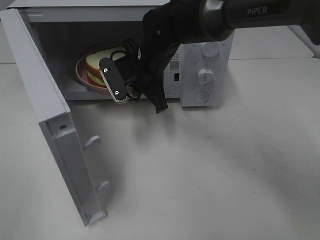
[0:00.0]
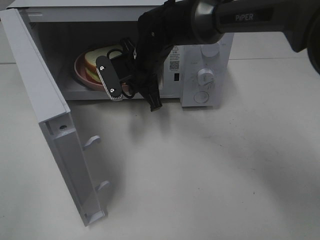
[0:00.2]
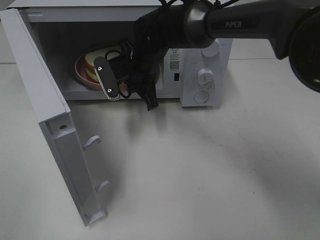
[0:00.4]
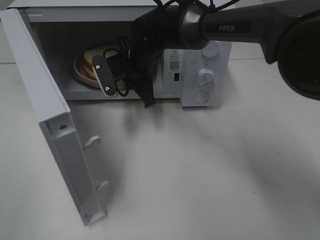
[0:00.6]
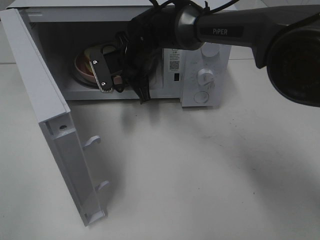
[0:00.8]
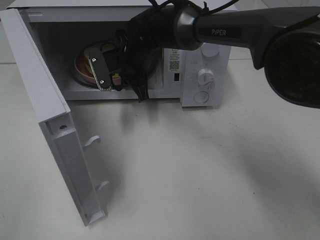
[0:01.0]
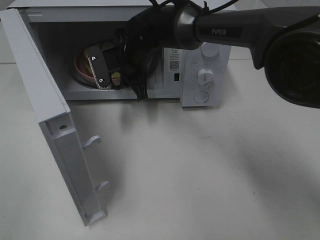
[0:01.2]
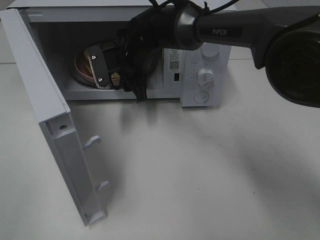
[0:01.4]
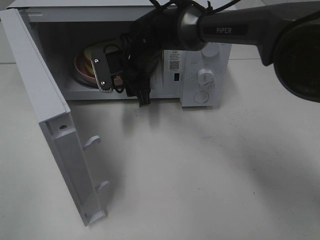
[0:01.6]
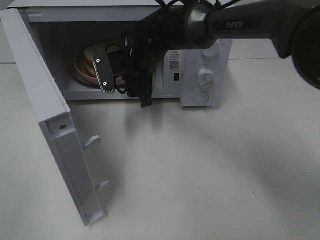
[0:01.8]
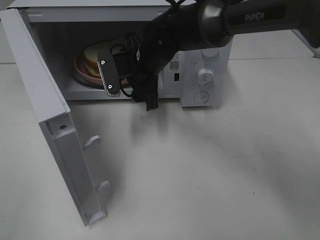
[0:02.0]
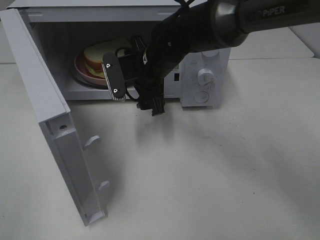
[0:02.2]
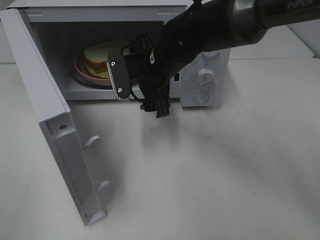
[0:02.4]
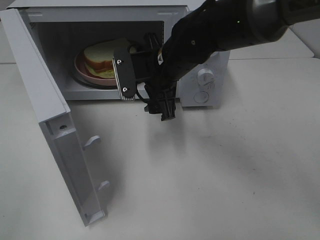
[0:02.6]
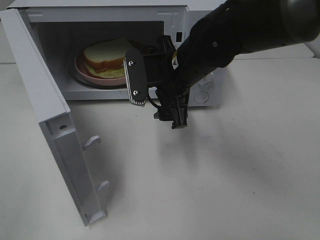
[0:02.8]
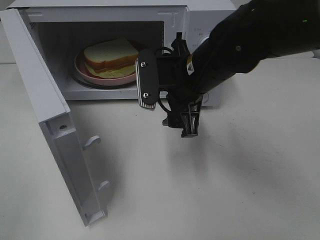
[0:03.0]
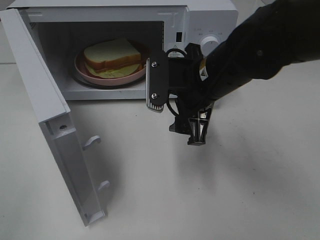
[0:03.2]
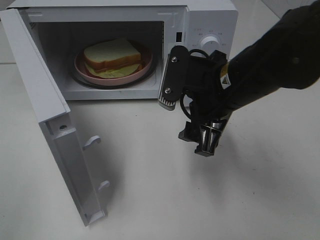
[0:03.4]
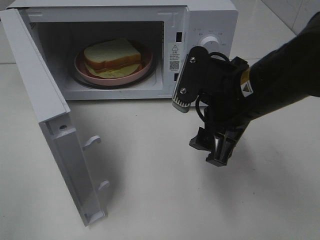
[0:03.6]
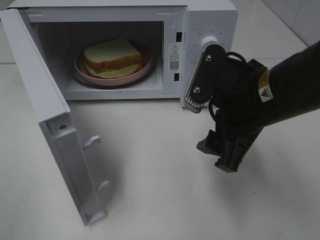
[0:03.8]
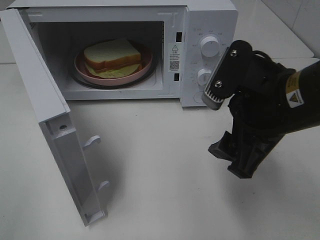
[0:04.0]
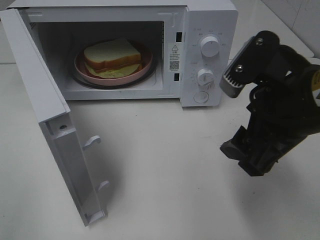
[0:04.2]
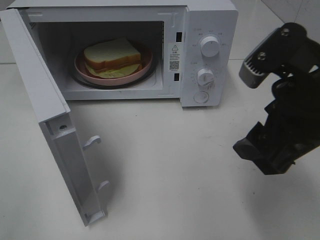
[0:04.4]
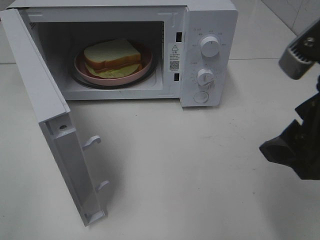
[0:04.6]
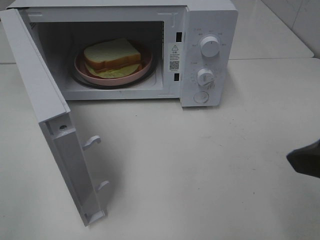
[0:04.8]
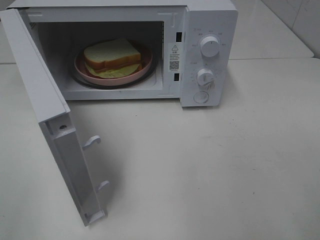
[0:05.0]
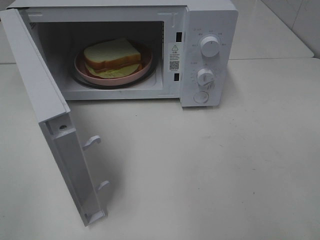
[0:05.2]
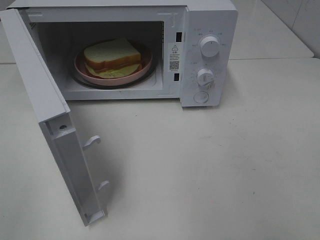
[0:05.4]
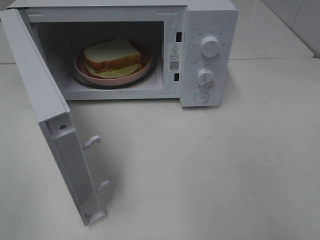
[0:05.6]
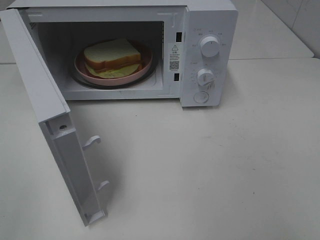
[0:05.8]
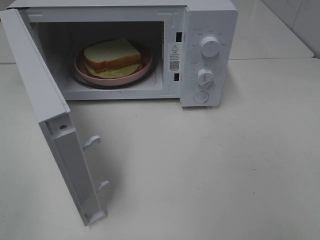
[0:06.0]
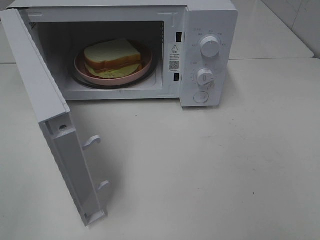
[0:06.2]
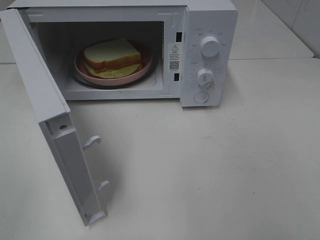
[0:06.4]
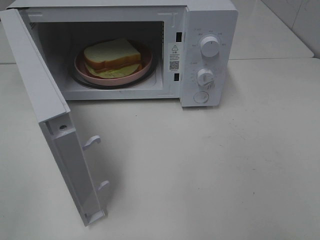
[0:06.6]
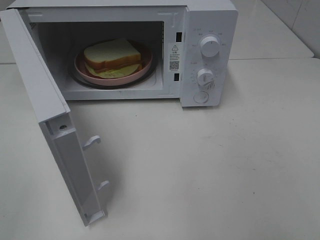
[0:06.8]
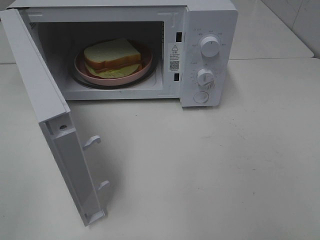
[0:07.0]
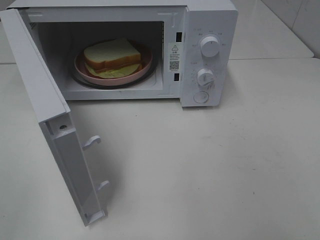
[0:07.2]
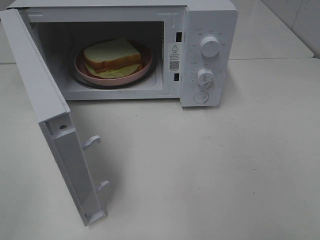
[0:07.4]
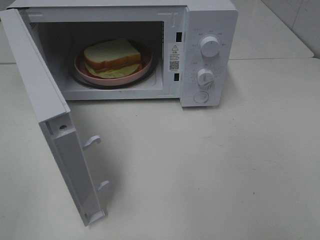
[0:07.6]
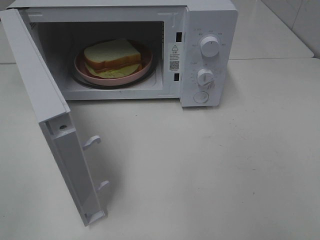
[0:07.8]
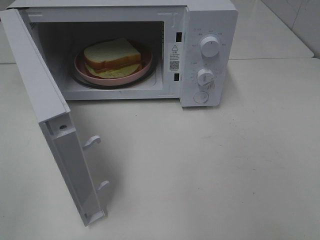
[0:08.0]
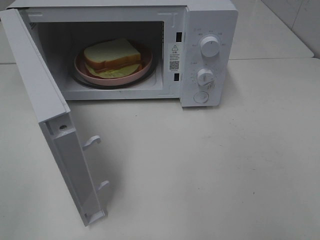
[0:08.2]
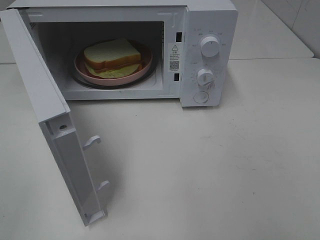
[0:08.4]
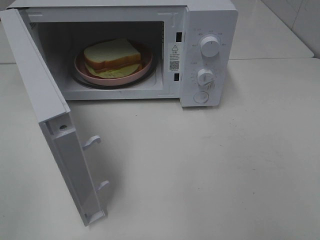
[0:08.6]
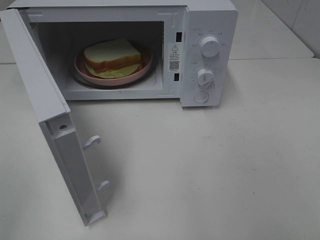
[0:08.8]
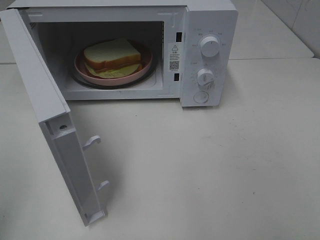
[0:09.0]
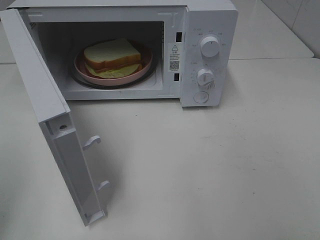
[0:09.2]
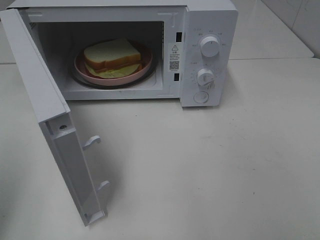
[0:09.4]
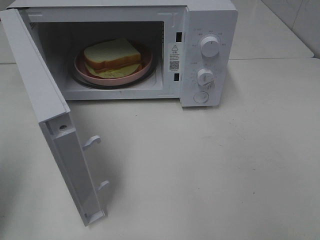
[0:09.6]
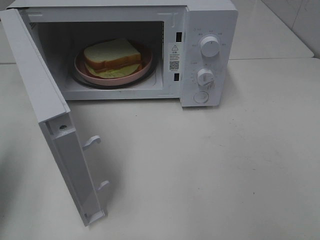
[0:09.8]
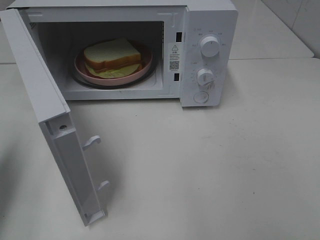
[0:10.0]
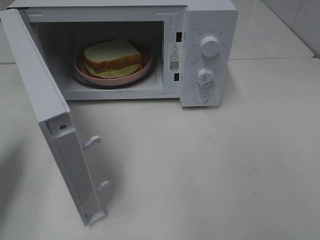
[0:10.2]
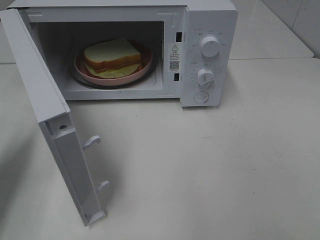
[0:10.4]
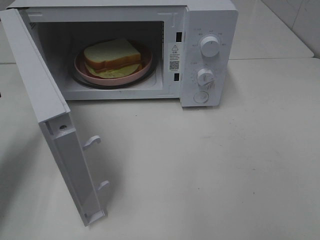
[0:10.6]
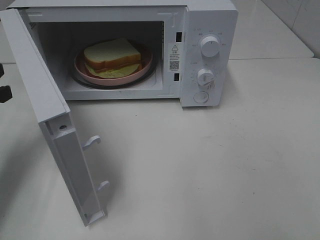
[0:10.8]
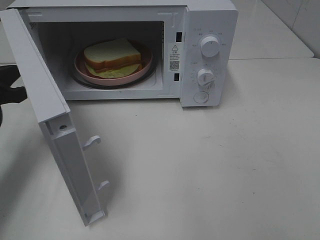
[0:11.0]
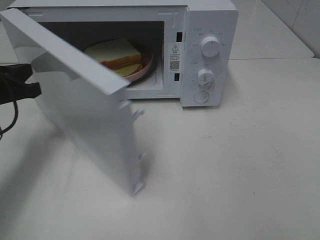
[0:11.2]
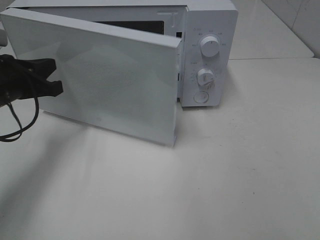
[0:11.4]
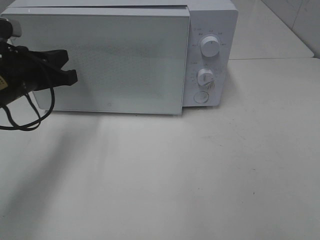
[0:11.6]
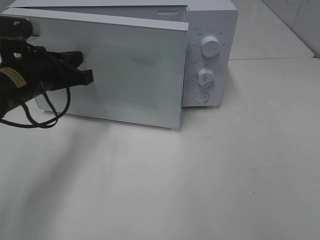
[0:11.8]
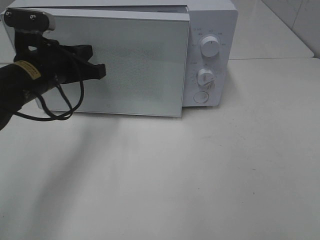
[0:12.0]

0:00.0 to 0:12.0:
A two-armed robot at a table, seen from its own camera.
Task of the whole recording: Heat Sandwich.
0:00.0 to 0:01.6: The right gripper opens its fingers.
0:01.6 to 0:03.0: The right gripper heads backward and to the right, covering about 15 cm.
0:03.0 to 0:04.4: The right gripper shifts approximately 20 cm backward, to the right and upward.
0:04.4 to 0:06.0: The right gripper is displaced backward and to the right by about 20 cm.
0:09.0 to 0:10.4: The left gripper heads forward and downward, covering roughly 20 cm, and closes.
0:10.4 to 0:12.0: The left gripper heads to the right and forward, covering some 15 cm.

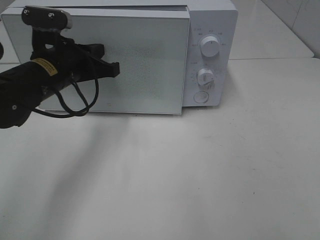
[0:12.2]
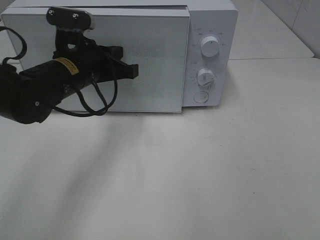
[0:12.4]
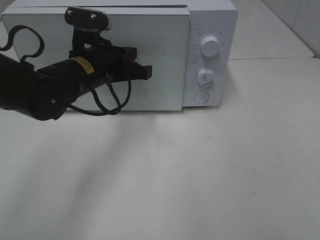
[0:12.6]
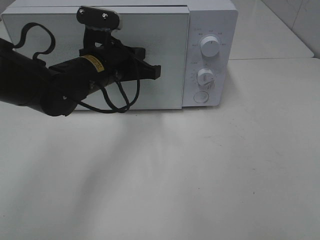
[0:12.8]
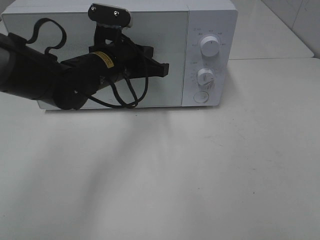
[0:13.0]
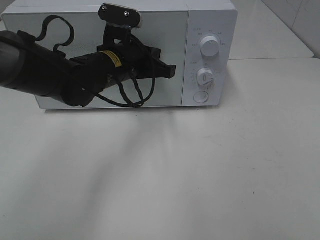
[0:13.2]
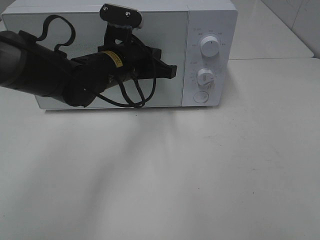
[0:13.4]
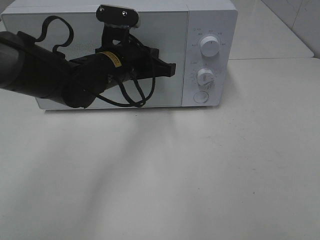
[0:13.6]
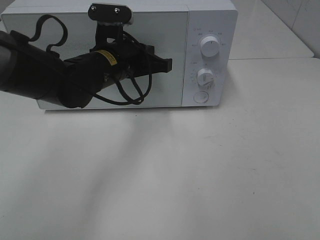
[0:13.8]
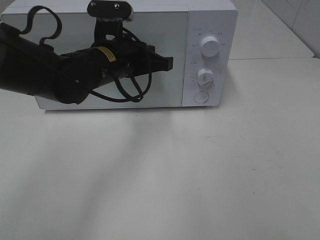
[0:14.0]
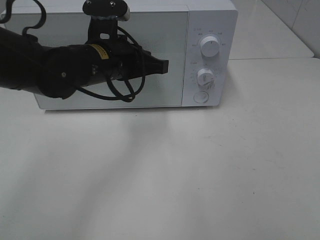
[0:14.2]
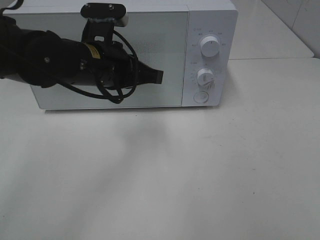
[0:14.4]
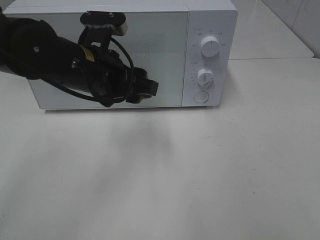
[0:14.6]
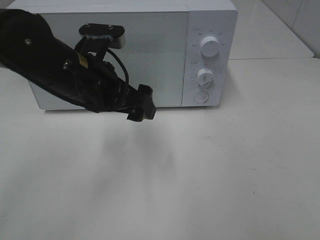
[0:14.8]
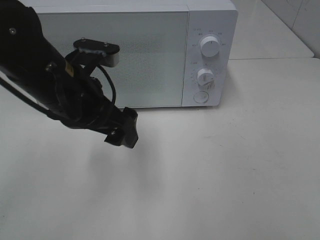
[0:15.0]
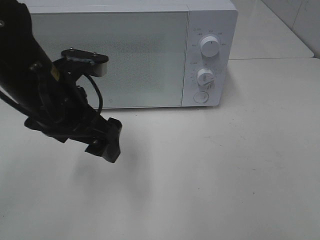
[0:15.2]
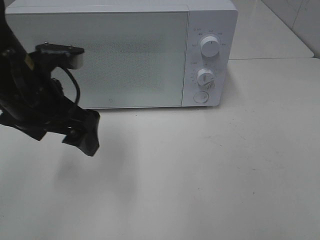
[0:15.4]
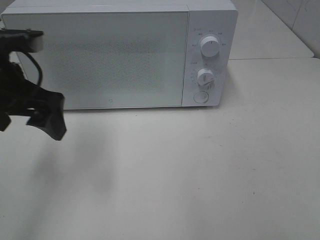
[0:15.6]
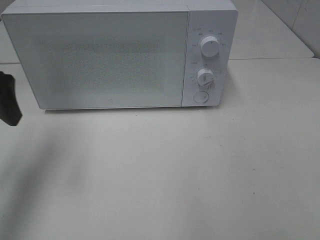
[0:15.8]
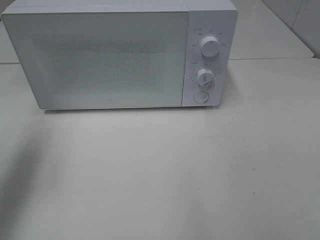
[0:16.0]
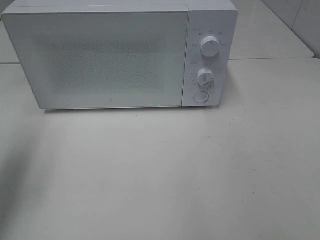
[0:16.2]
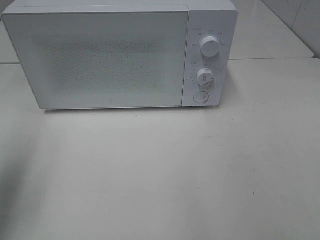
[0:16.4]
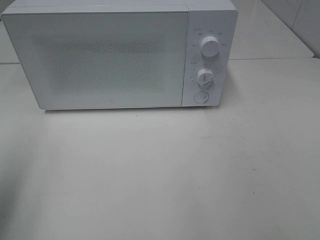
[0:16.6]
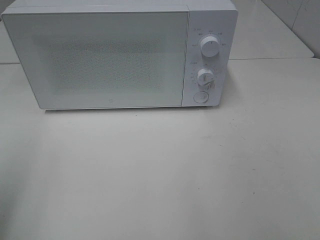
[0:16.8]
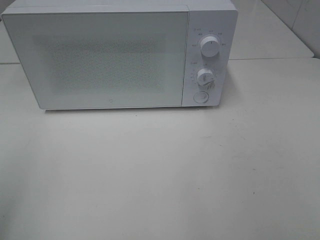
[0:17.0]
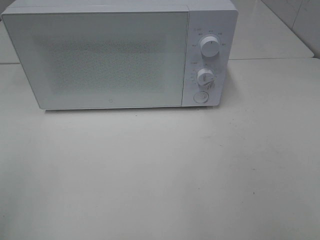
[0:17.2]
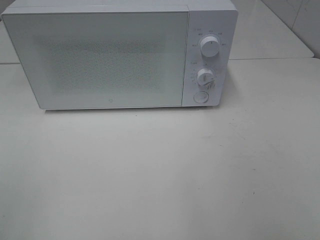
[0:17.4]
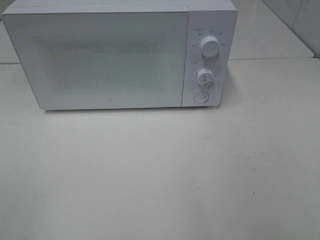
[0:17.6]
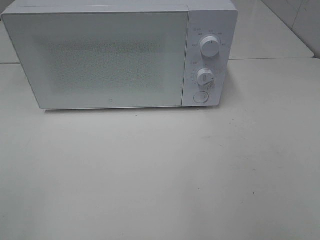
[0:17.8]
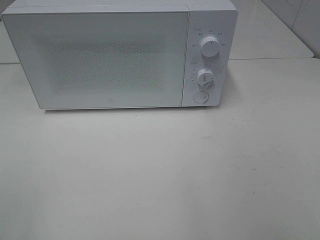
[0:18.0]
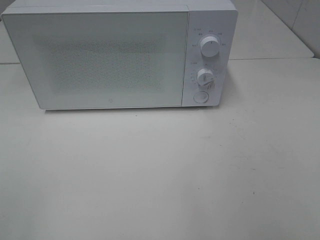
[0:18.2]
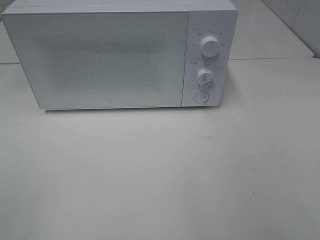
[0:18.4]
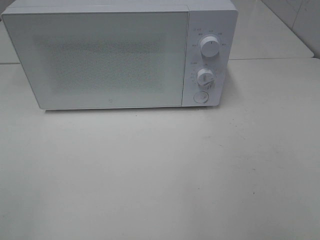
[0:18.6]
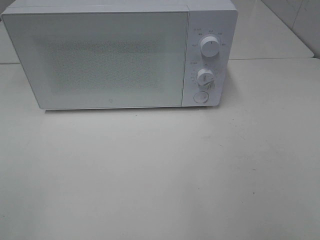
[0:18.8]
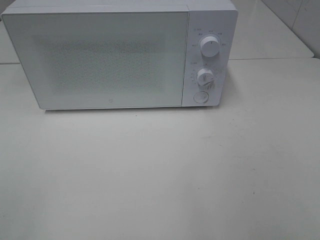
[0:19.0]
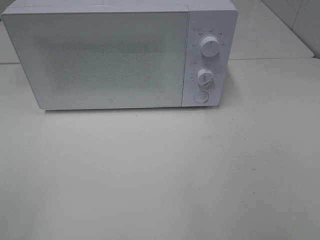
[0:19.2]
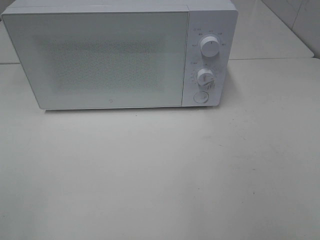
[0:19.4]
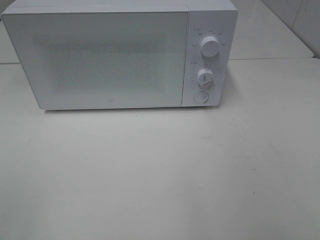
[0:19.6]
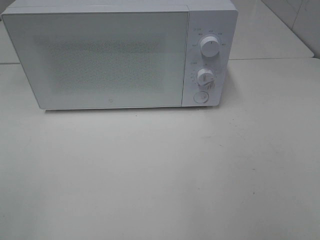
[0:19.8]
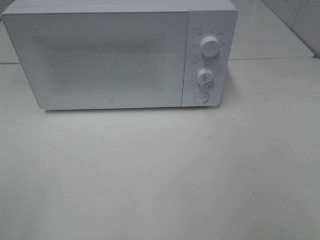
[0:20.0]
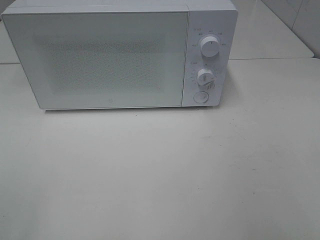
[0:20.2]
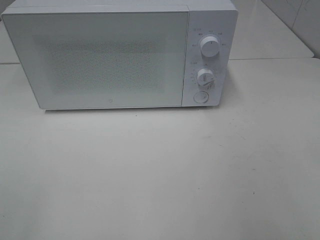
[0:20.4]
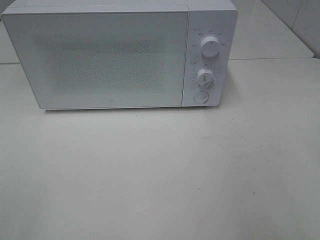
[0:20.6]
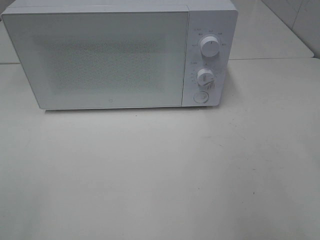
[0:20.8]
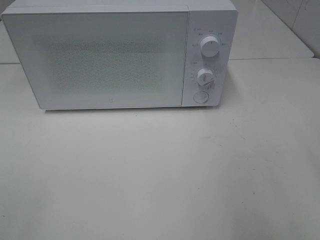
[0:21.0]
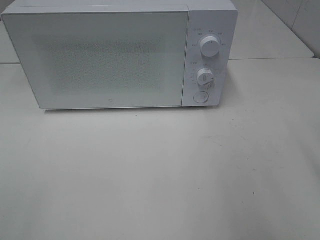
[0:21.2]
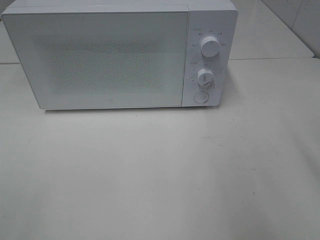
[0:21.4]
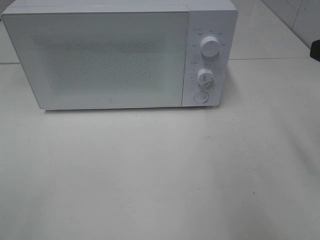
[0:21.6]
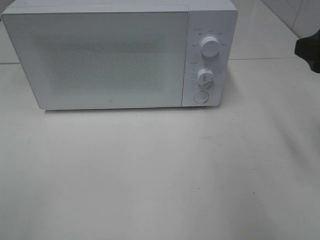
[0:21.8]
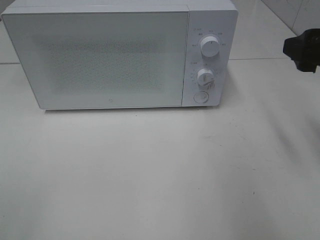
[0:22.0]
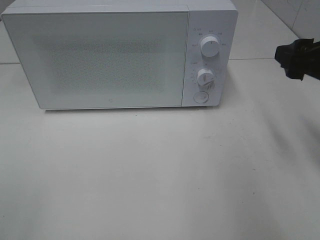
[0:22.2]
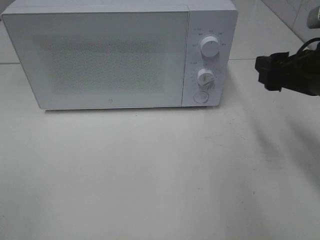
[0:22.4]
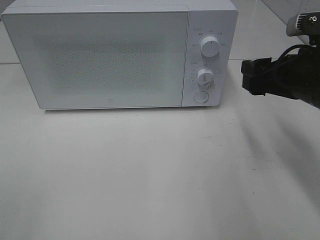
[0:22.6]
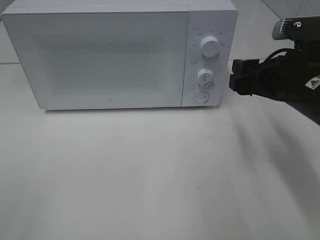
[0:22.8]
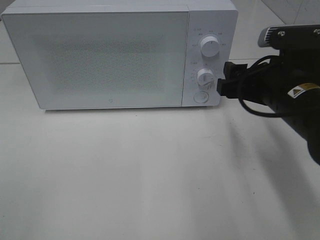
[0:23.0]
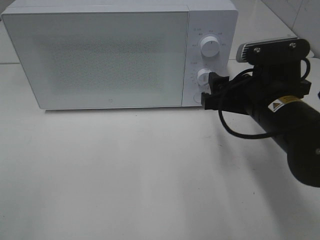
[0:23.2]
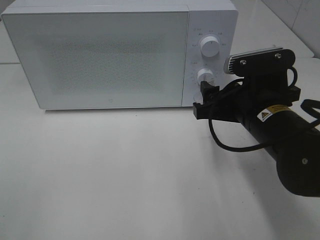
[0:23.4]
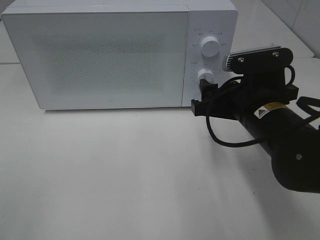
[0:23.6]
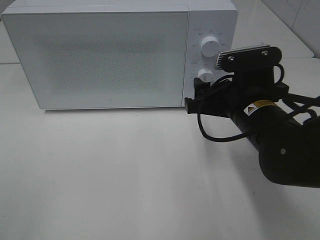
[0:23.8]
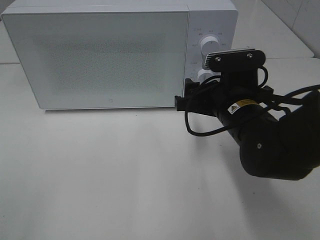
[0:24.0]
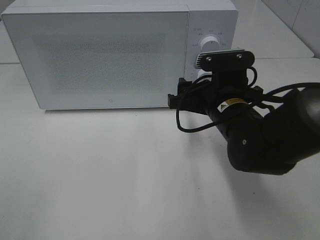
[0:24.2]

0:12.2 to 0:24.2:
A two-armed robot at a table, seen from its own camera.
Task of the whole recording: Heat Sandwich.
Step, 0:12.2 to 0:14.2: Left hand: close the microwave door.
0:12.2 to 0:13.8: The left gripper moves to the right, roughly 10 cm.
0:13.8 to 0:15.2: The left gripper is displaced backward and to the left by some 10 cm, and opens its fingers.
0:15.2 to 0:16.6: The left gripper travels to the left, backward and upward by approximately 25 cm.
0:16.6 to 0:18.2: The left gripper heads backward, covering some 15 cm.
0:18.2 to 0:19.8: Both grippers stay about where they are.
0:21.2 to 0:22.6: The right gripper shifts about 15 cm forward, downward and to the left.
0:22.6 to 0:24.2: The right gripper is displaced to the left and downward by roughly 10 cm.
